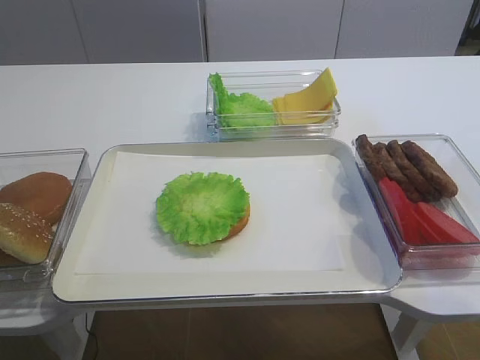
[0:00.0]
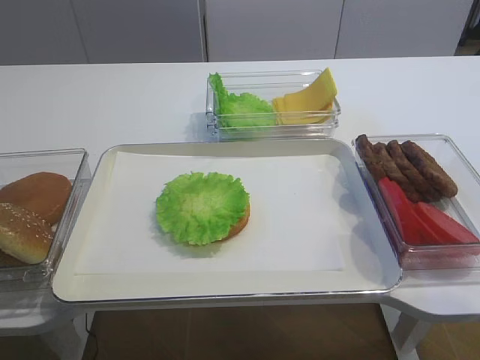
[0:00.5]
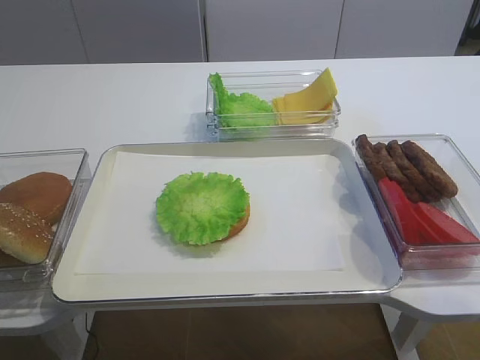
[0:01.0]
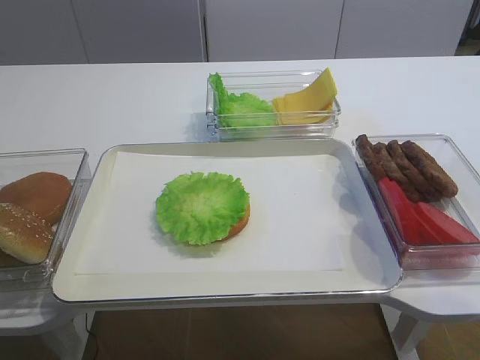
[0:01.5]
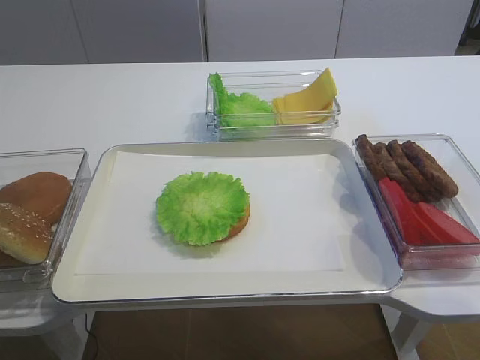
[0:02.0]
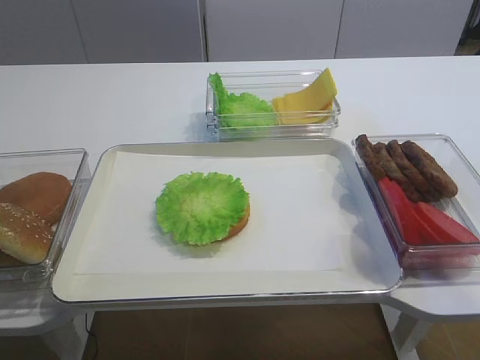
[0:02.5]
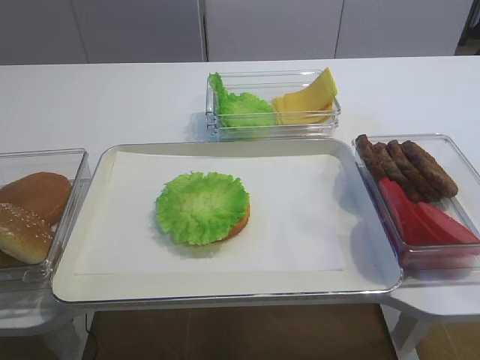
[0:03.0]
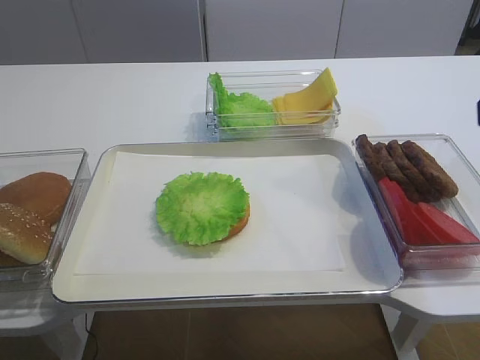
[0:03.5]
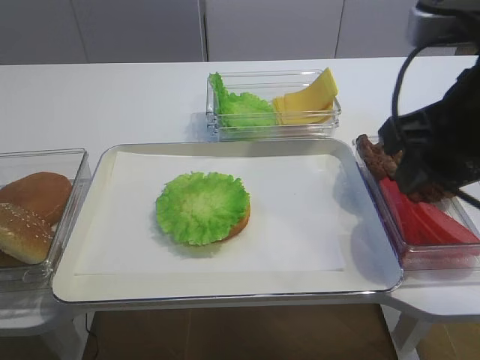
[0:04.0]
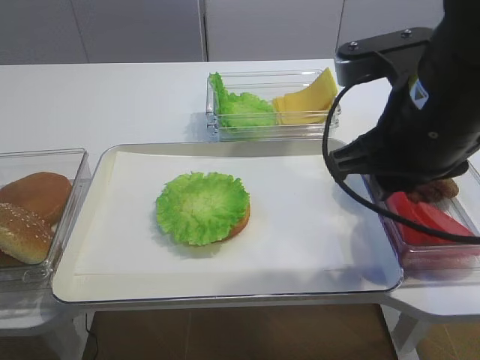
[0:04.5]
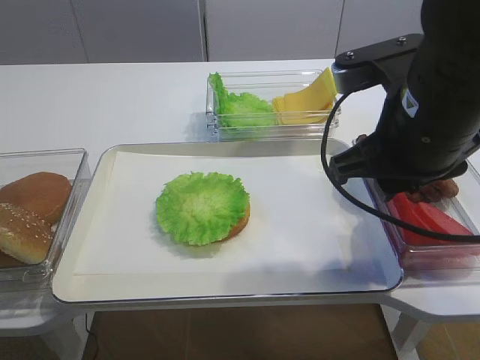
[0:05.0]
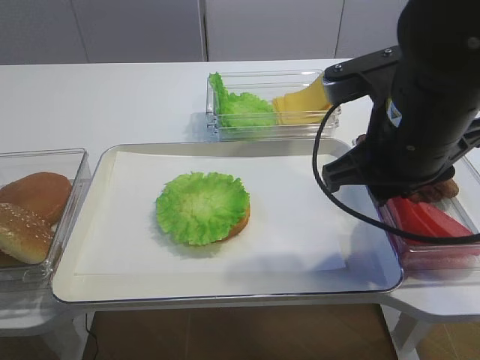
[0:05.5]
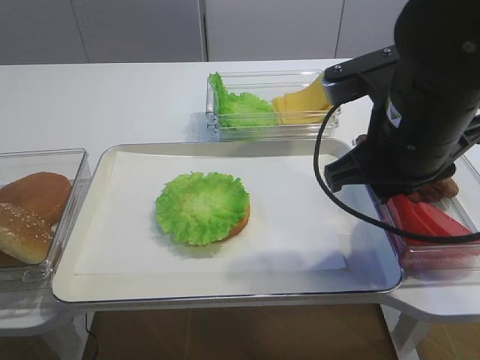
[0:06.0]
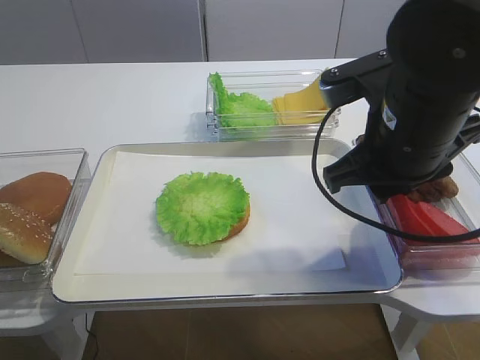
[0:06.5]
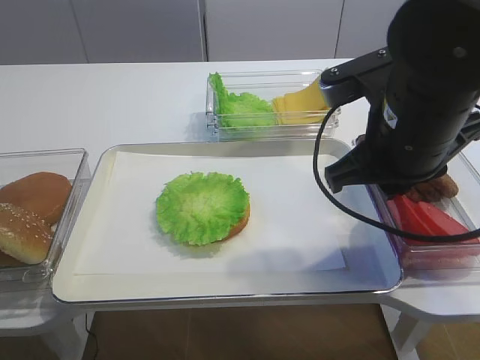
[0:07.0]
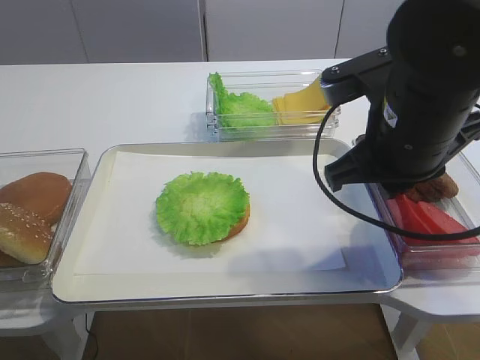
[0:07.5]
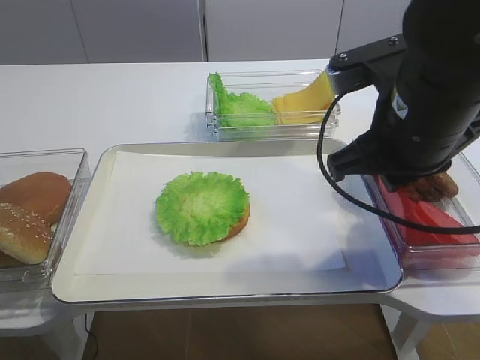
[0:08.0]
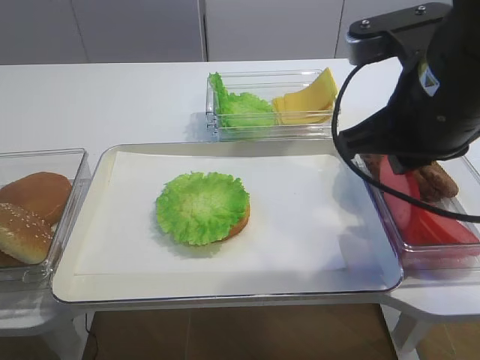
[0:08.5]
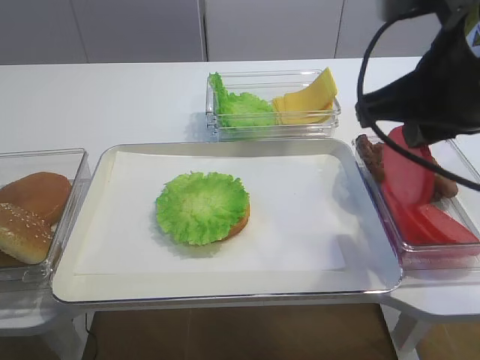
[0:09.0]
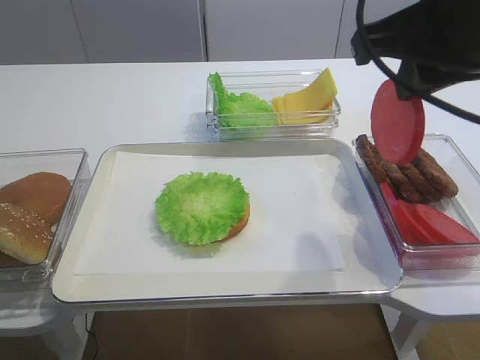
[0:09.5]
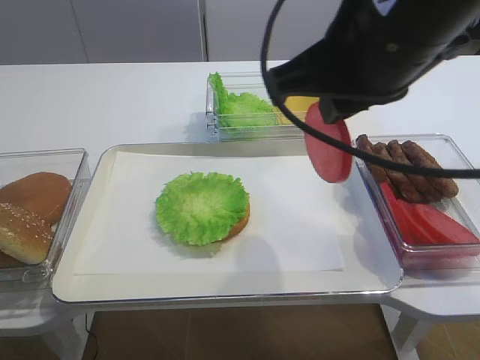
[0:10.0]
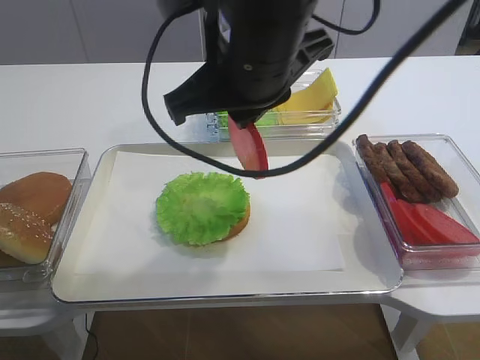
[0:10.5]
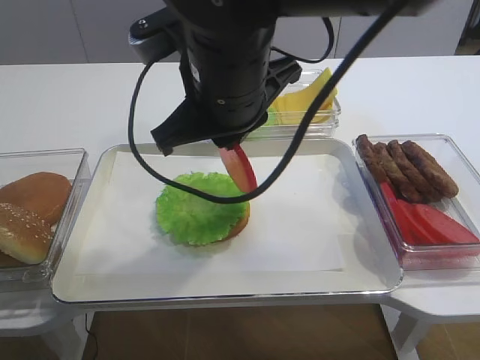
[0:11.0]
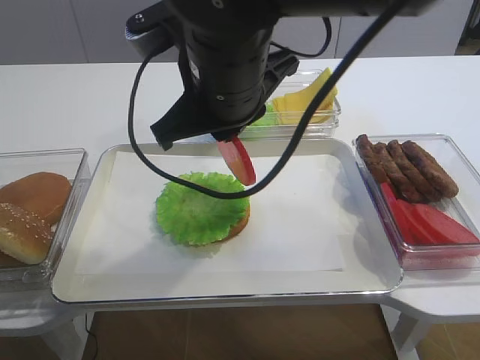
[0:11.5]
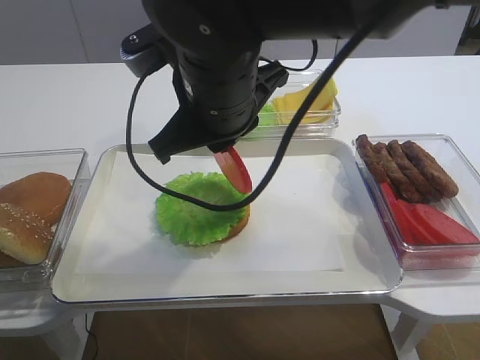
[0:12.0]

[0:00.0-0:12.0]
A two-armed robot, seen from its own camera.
Step, 0:00.0 to 0:08.5: Pick up the tomato slice with the right gripper.
0:02.0 to 0:04.0: The right gripper goes approximately 20 cm forward and to the left.
0:04.0 to 0:06.0: The right gripper shifts about 5 cm downward.
0:06.0 to 0:08.0: The right gripper closes.
0:08.0 to 0:10.0: The right gripper heads upward, covering roughly 10 cm.
0:10.0 to 0:12.0: The right gripper moves to the left, downward and forward, some 15 cm.

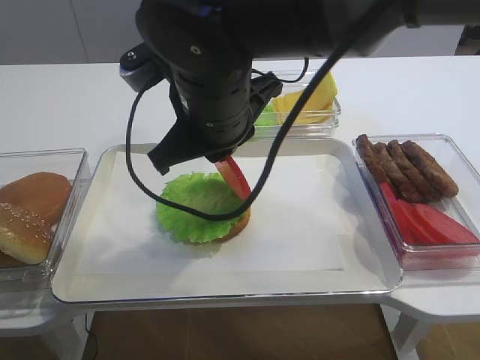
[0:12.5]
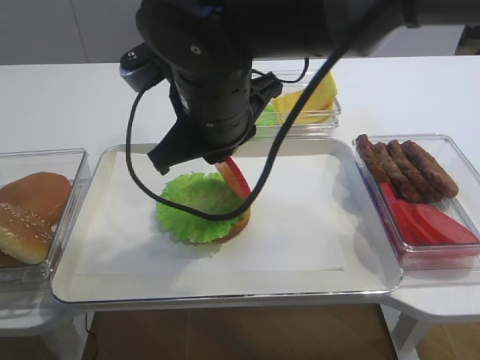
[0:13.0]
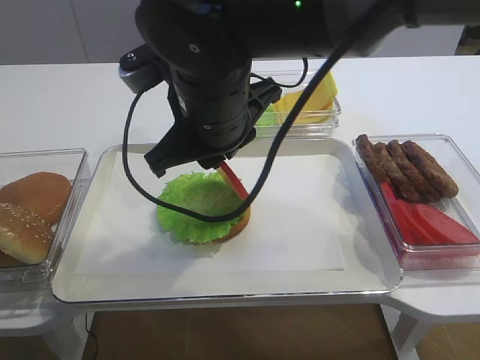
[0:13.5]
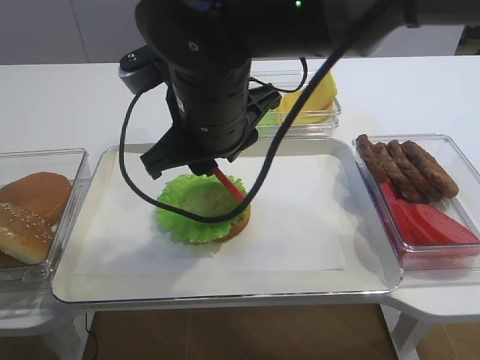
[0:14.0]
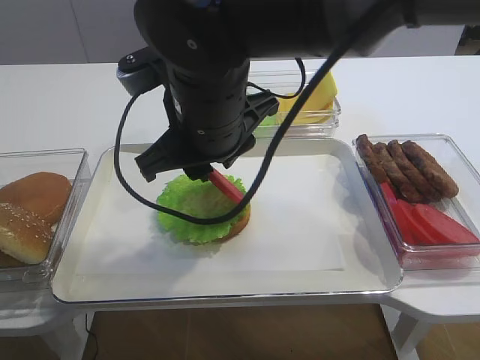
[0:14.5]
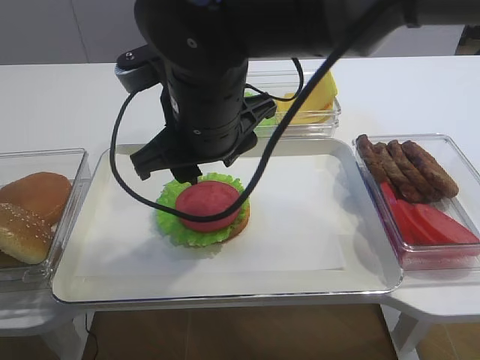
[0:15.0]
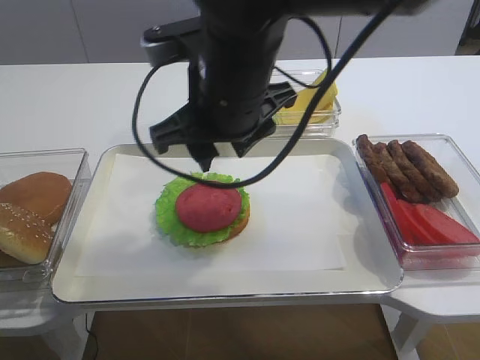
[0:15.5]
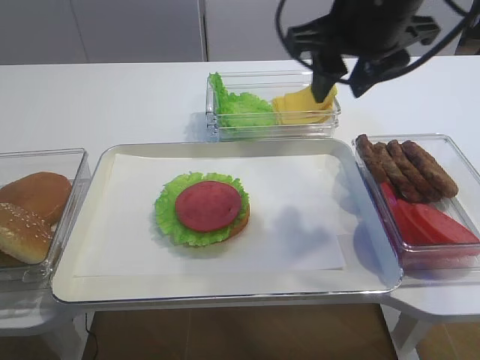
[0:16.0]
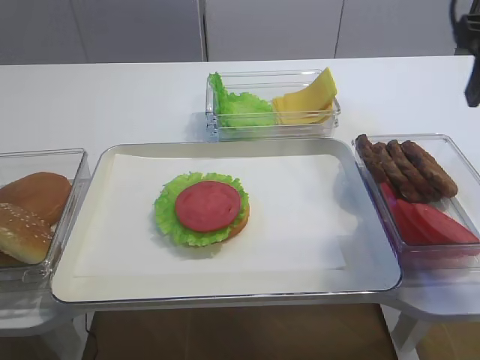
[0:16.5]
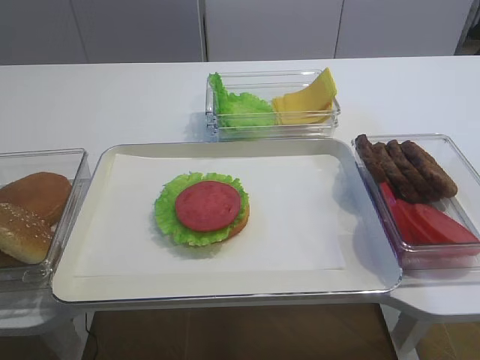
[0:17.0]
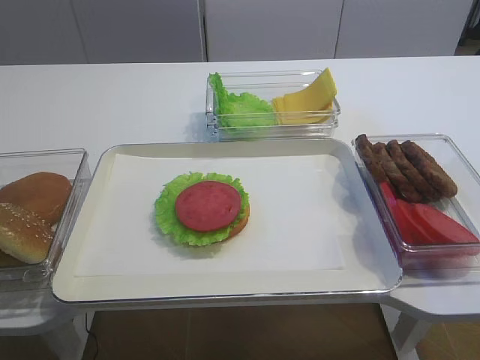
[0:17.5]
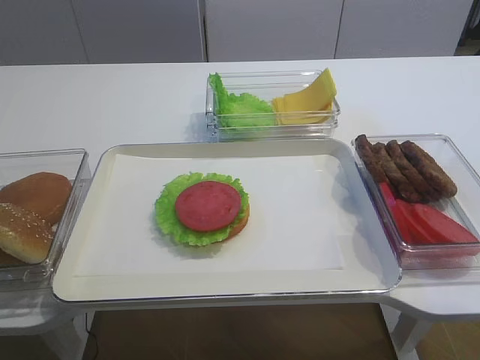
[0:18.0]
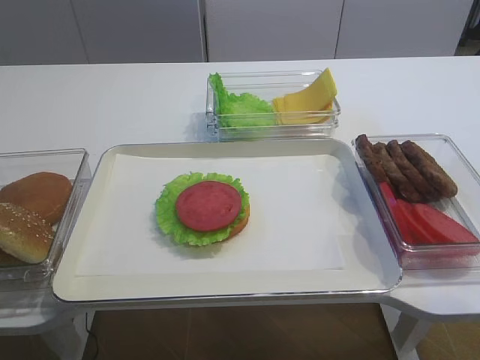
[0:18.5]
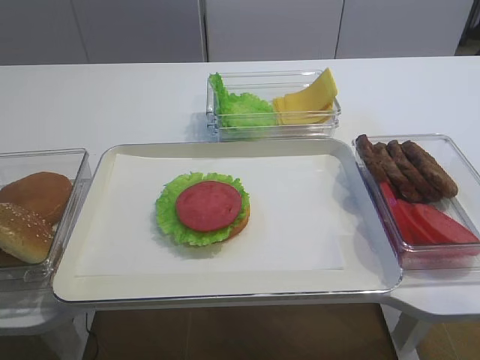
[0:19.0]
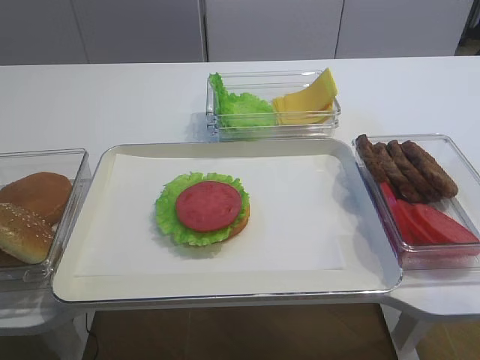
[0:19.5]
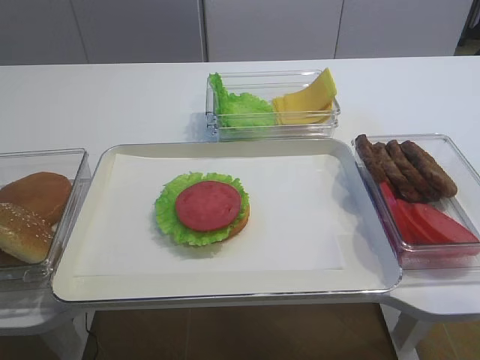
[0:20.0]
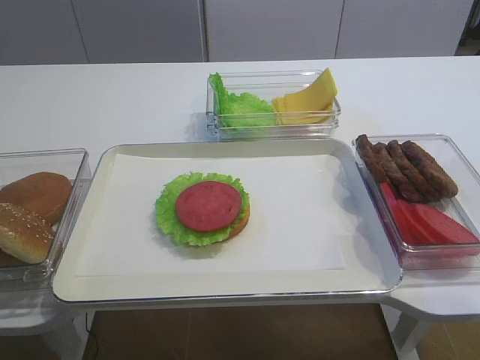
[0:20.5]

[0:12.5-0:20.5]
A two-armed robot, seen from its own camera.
Step, 0:12.5 to 0:15.0: Place the tomato slice on the lettuce leaf with the right gripper.
0:12.5 to 0:14.5: The right gripper opens.
0:14.5 to 0:16.5: The right gripper moves to the right, approximately 25 cm, and opens.
0:16.5 to 0:18.5: The right gripper is displaced backward by approximately 30 cm.

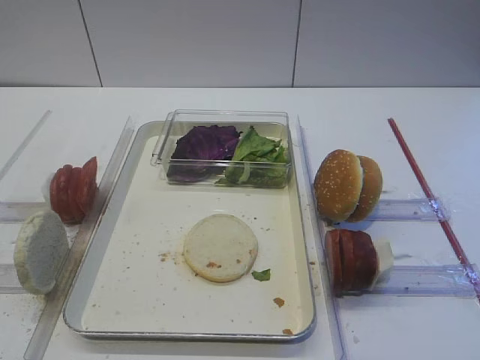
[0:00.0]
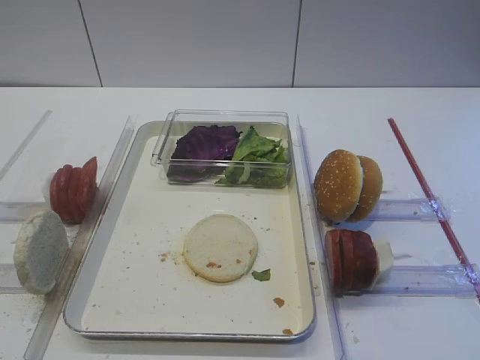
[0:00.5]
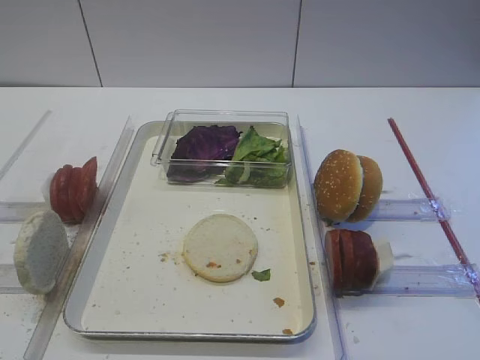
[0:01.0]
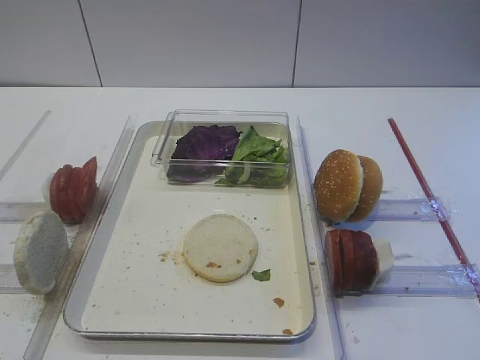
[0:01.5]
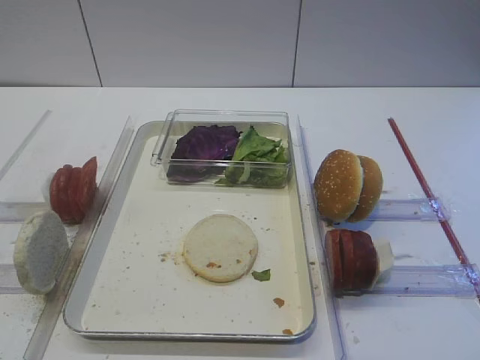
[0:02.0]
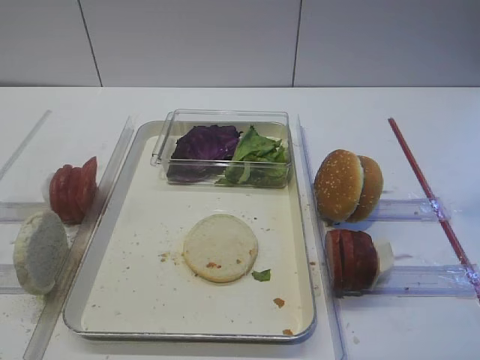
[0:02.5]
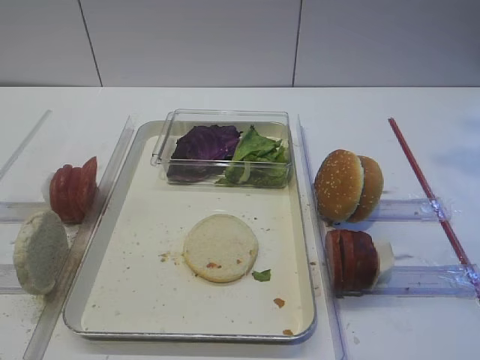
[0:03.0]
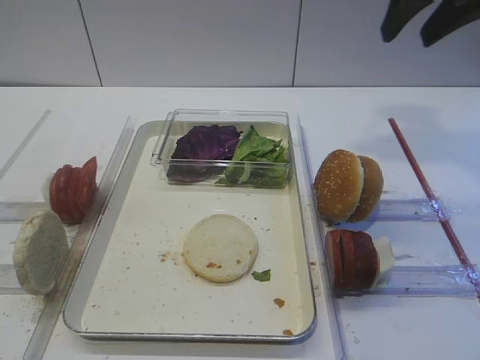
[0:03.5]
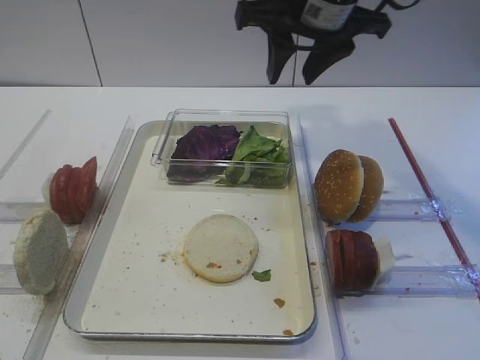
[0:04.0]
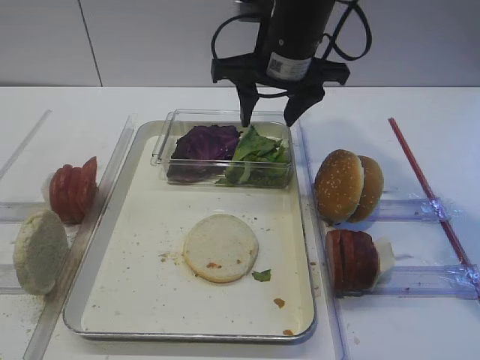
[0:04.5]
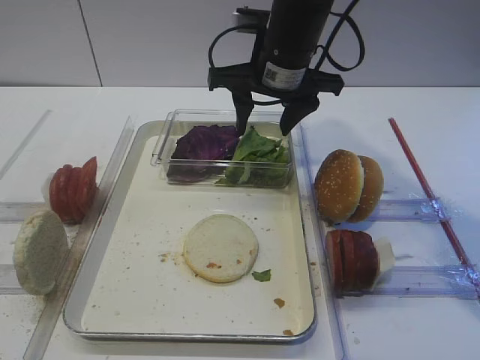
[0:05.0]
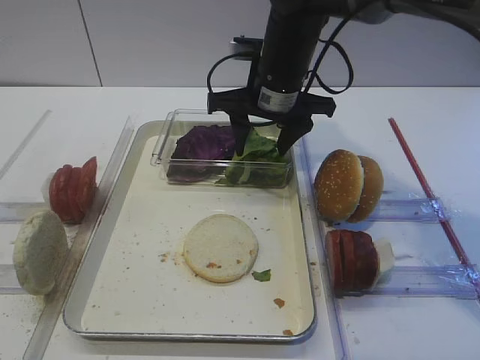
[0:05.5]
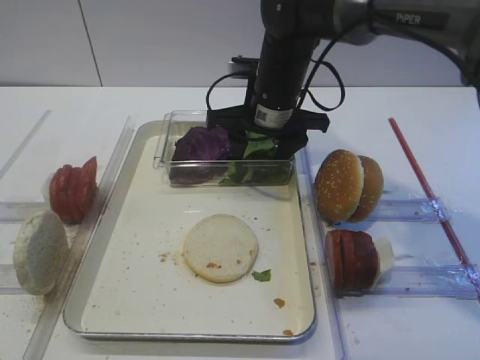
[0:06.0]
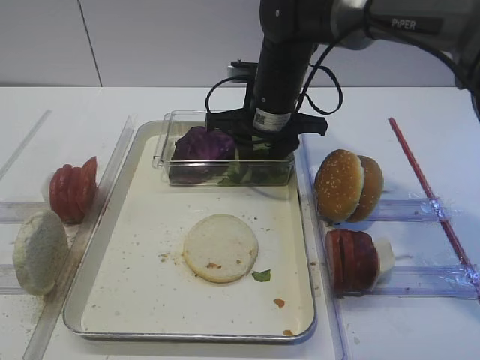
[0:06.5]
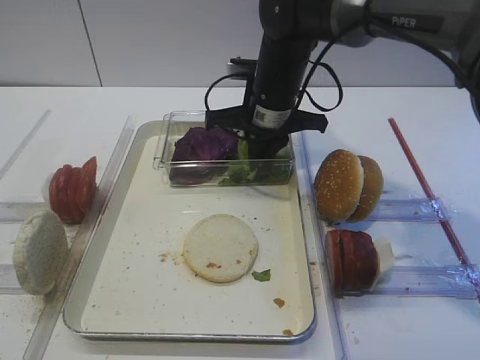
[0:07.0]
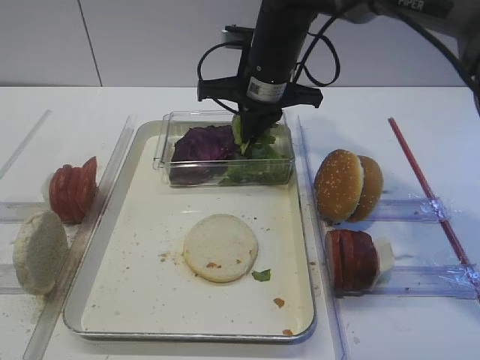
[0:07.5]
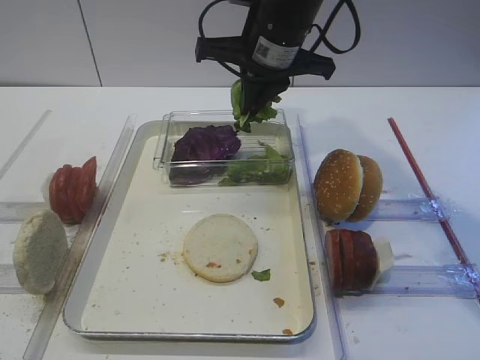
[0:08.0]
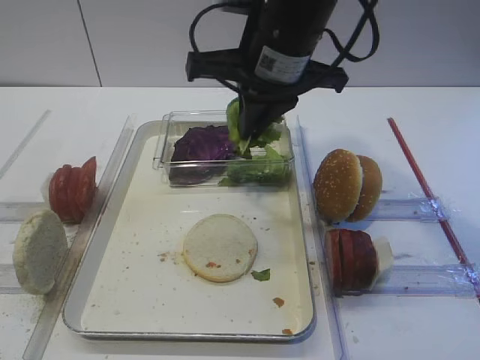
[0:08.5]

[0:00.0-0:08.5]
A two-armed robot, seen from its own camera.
Step, 0:00.0 to 0:07.5: Pick up the lettuce leaf with the right gripper.
0:02.0 to 0:04.0: The right gripper heads forward and to the left, covering roughly 35 cm.
0:04.0 to 0:06.5: The right gripper travels downward by some 15 cm.
0:06.5 to 0:08.5: The right gripper is displaced upward and backward by roughly 15 cm, and closes.
